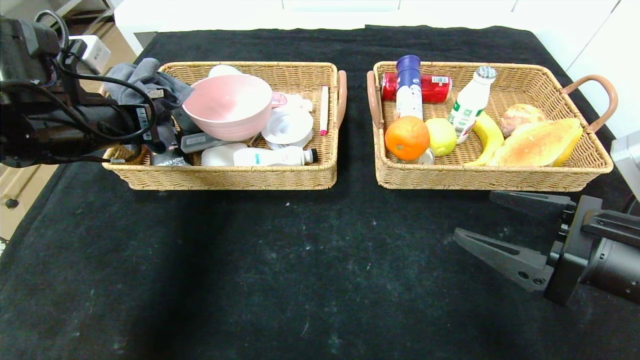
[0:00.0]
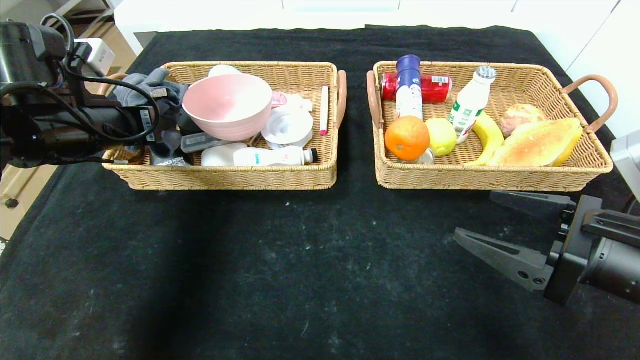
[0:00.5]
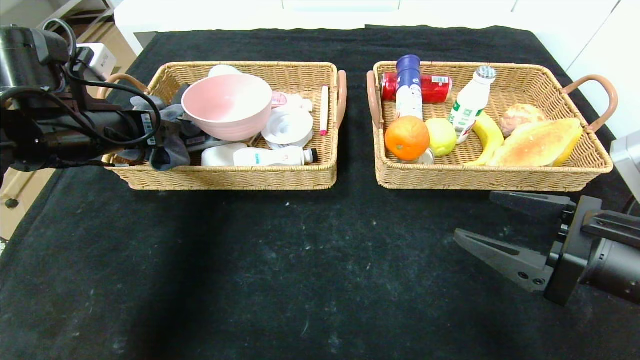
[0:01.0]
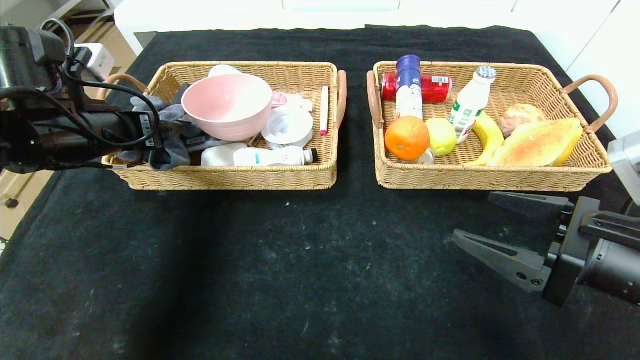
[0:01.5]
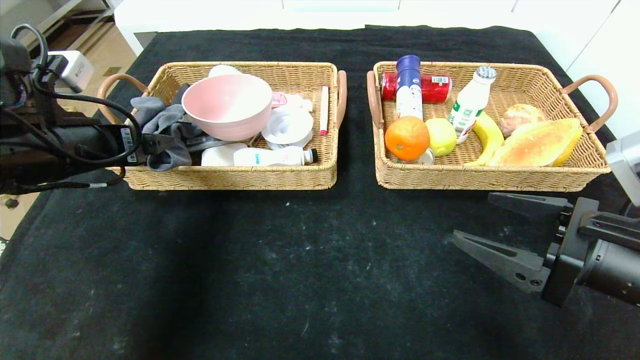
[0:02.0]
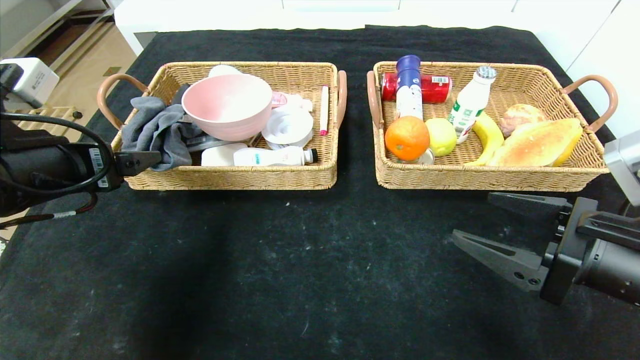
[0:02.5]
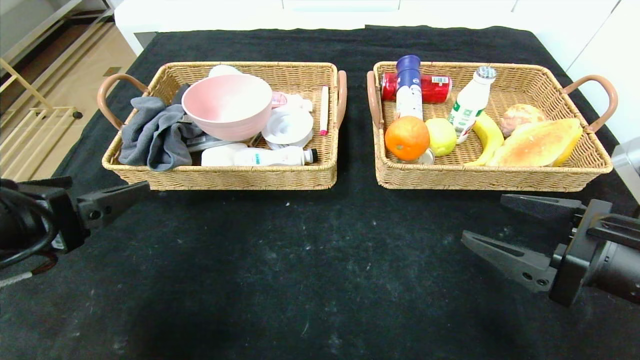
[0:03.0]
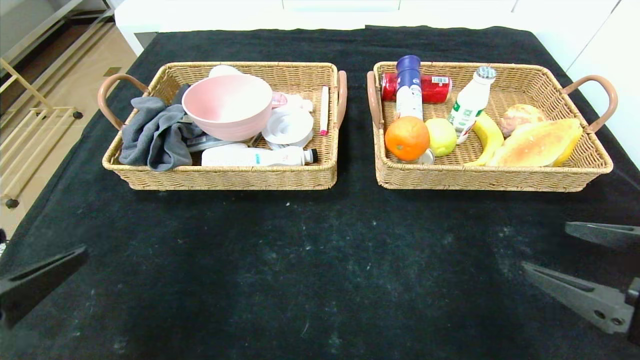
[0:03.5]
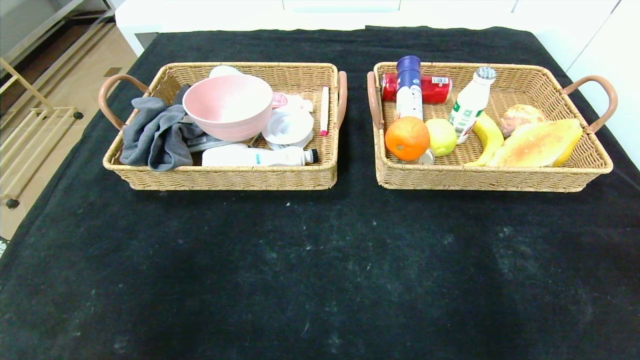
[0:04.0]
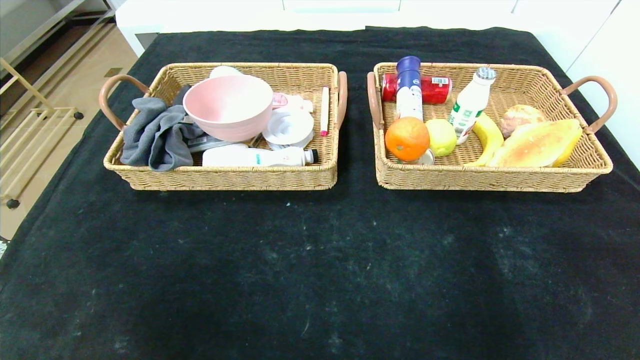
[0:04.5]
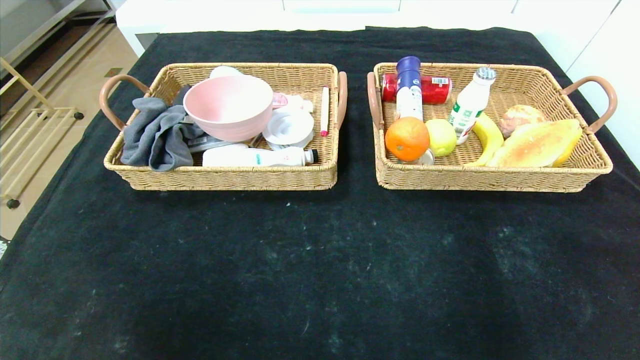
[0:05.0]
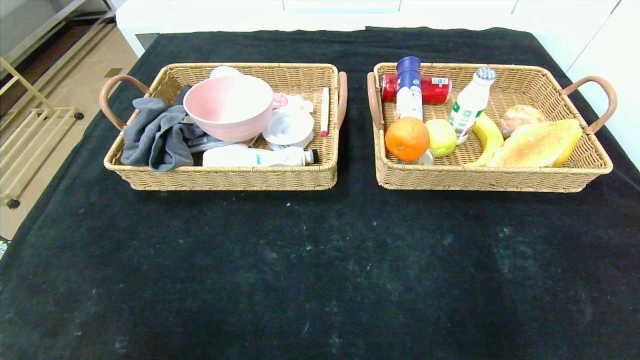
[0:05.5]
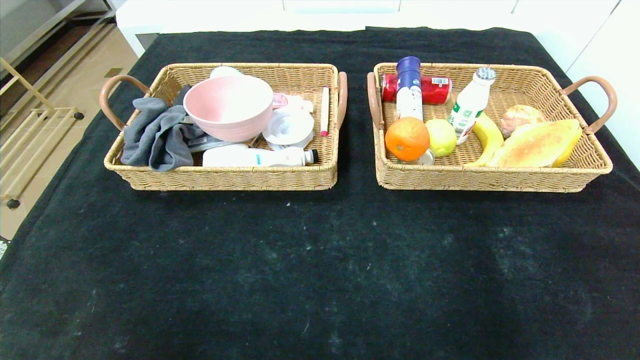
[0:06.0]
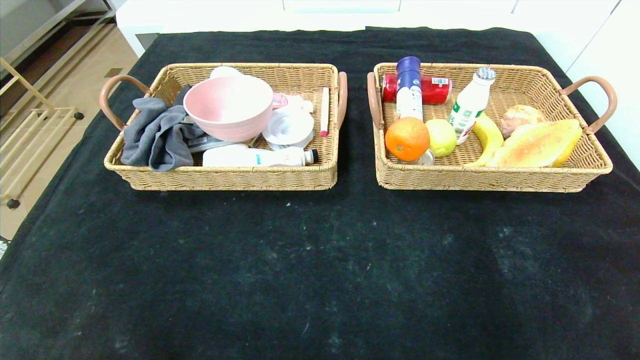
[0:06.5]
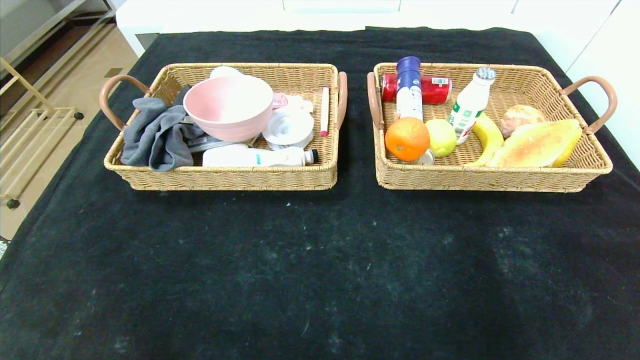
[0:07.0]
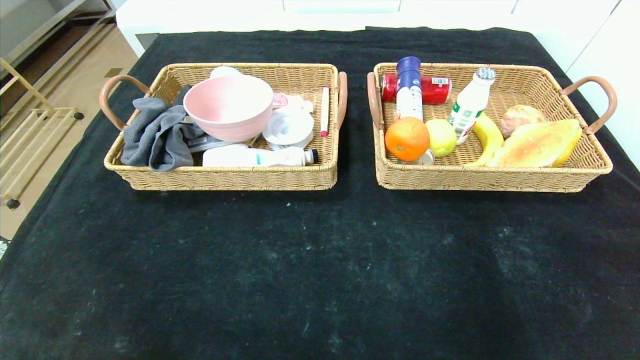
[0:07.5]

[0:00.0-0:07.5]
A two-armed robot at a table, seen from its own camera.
0:00.0 to 0:02.0: The left gripper opens up.
0:02.0 to 0:04.0: The left gripper moves backward, roughly 25 cm; the right gripper goes about 20 cm backward and to the right.
0:04.0 to 0:05.5: The right gripper heads backward and downward, covering approximately 15 cm, while the left gripper travels downward and backward by about 10 cm.

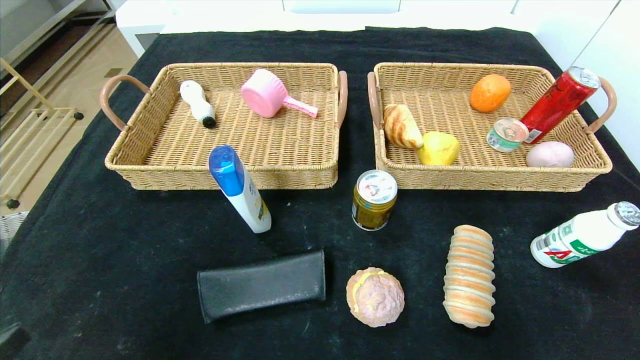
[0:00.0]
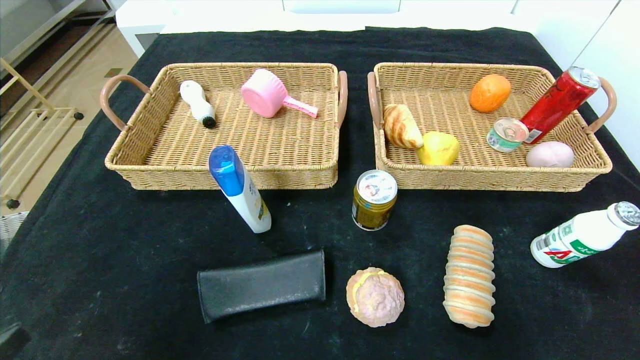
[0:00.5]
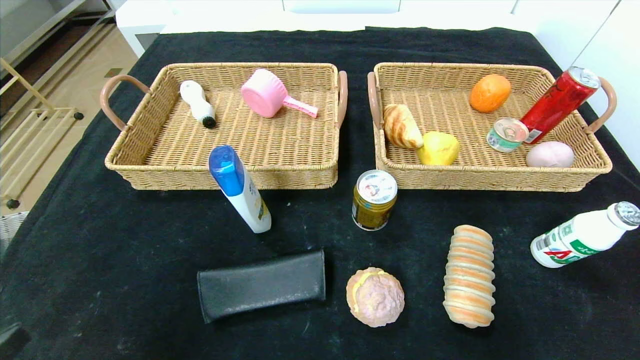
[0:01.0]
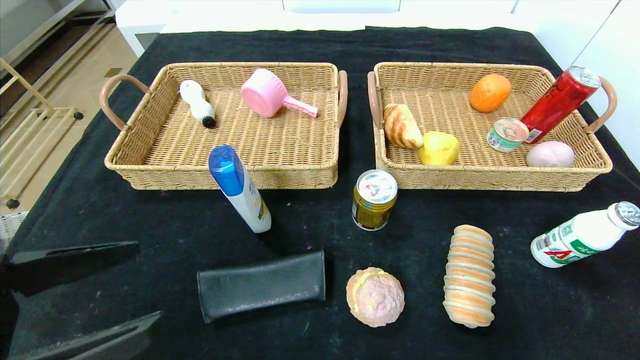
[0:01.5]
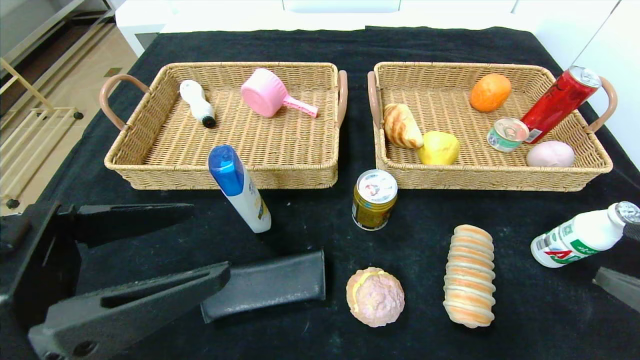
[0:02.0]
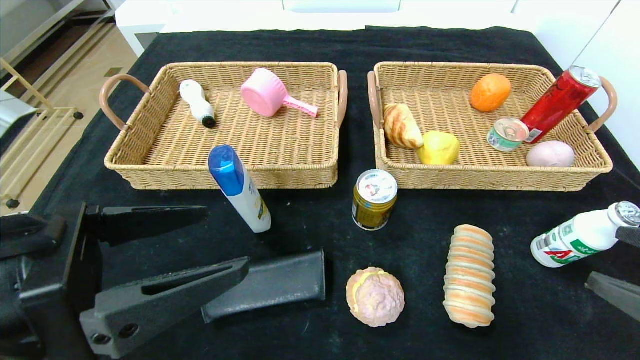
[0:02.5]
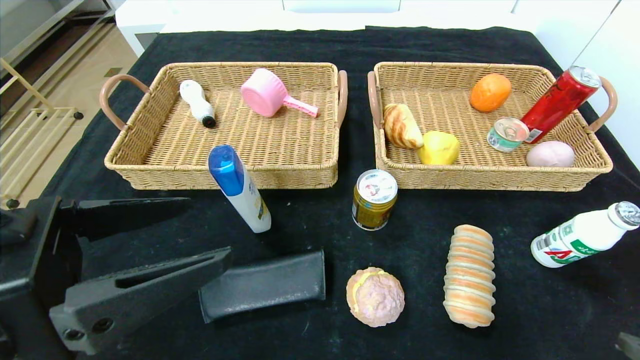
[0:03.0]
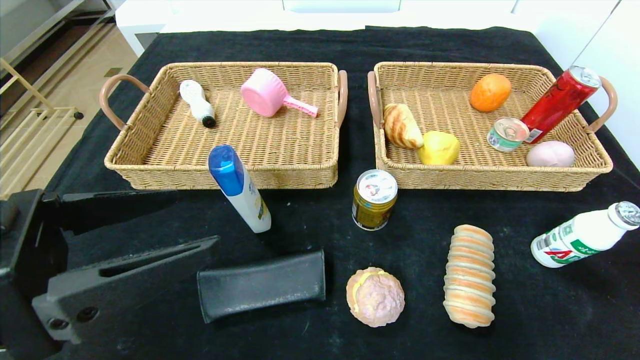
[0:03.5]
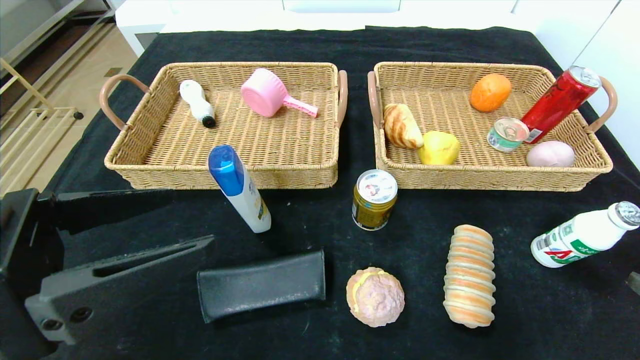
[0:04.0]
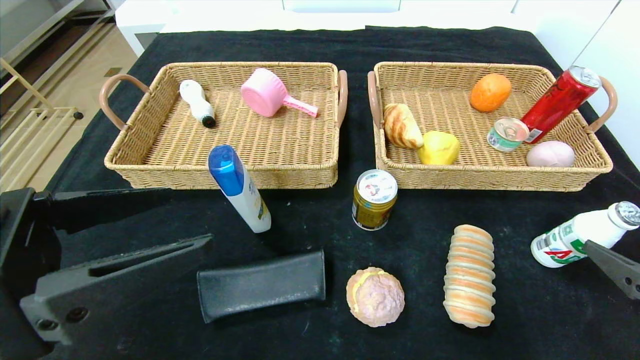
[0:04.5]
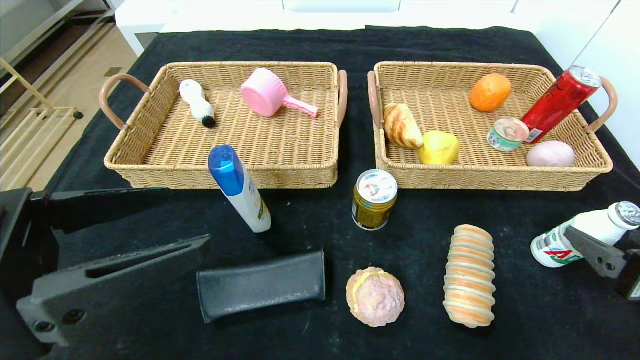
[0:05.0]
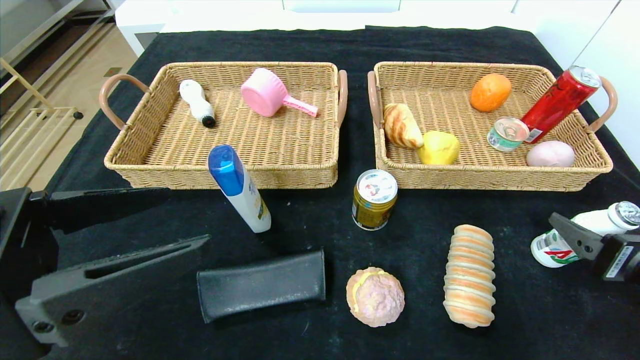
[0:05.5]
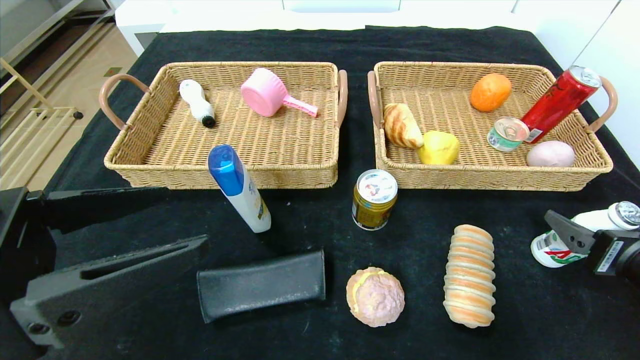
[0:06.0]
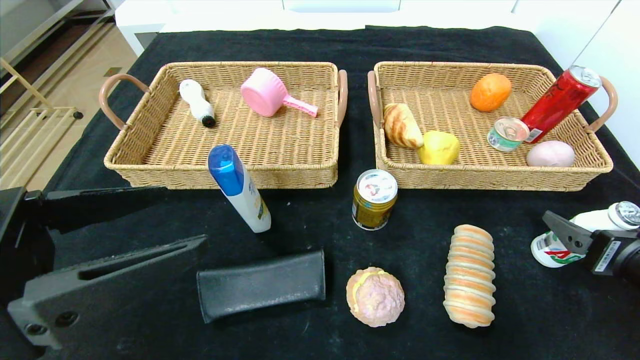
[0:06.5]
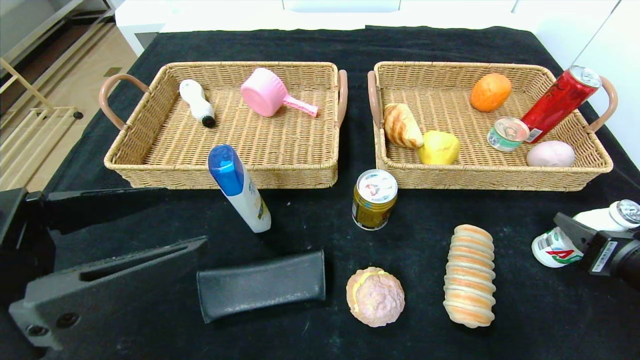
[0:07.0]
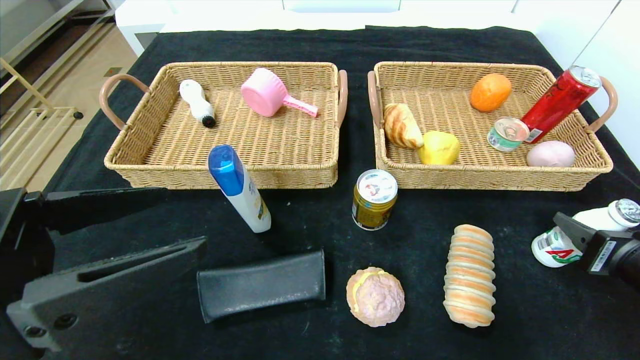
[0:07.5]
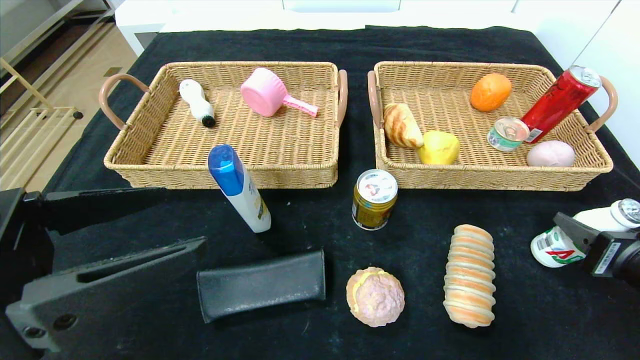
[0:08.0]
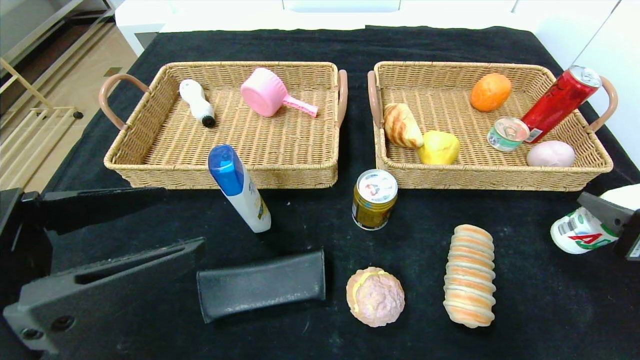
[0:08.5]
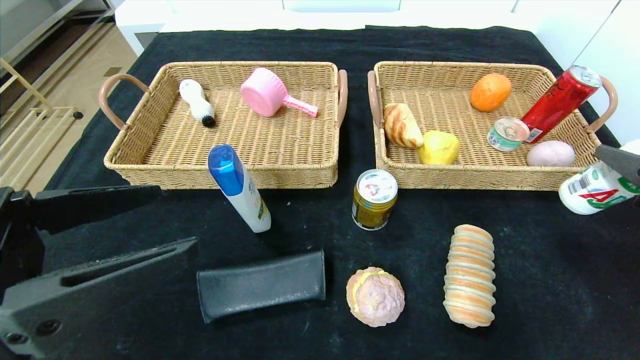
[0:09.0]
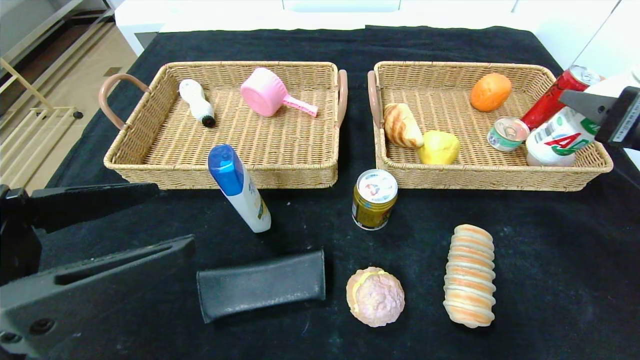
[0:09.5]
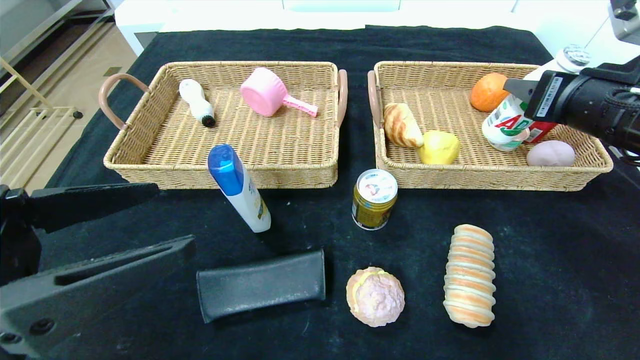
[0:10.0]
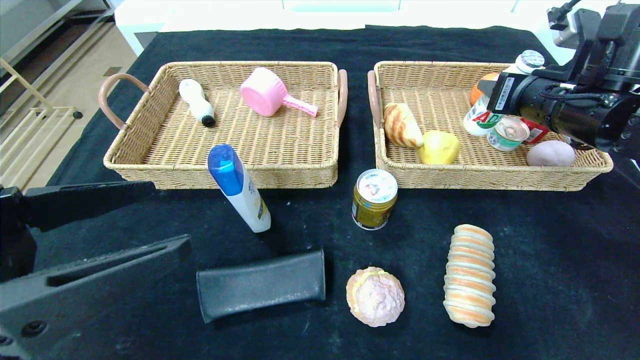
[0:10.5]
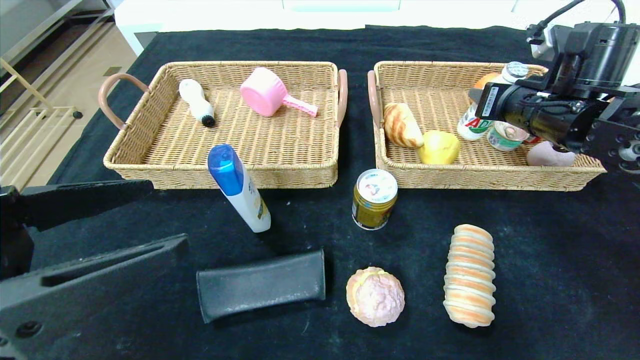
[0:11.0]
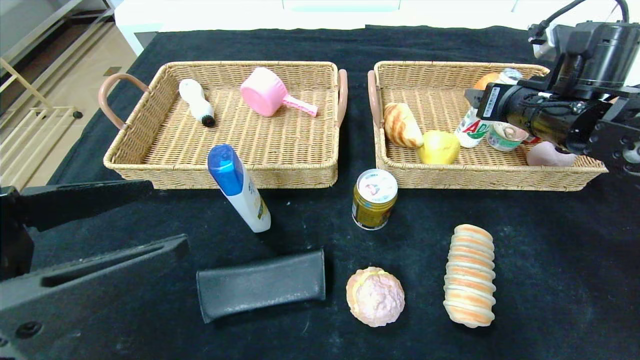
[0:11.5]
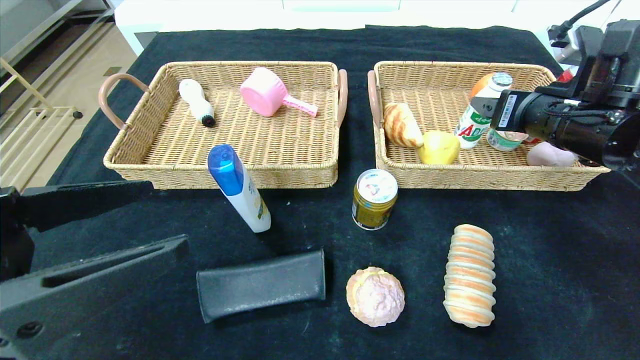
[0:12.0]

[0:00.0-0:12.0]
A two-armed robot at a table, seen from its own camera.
Step, 0:00.0 to 0:11.0: Grasp the ad milk and put it in the right basket.
0:00.0 to 0:02.0: The right gripper shifts some 20 cm upward and forward, while the left gripper travels upward, forward and to the right by about 25 cm.
0:04.0 to 0:06.0: The right gripper is displaced forward by some 10 cm.
0:06.0 to 0:08.0: The right gripper closes.
0:08.0 to 0:10.0: The right gripper heads upward, forward and to the left, covering roughly 20 cm.
0:10.0 to 0:12.0: The right gripper opens up.
